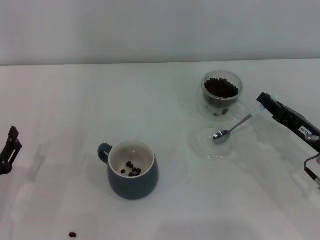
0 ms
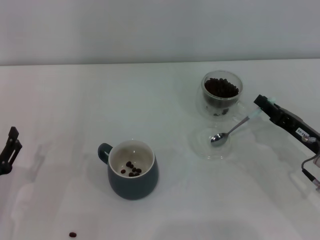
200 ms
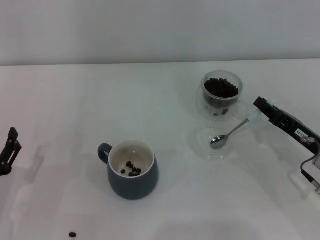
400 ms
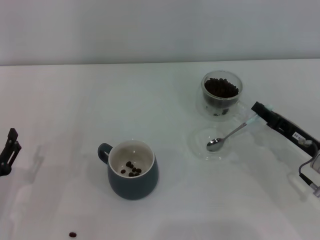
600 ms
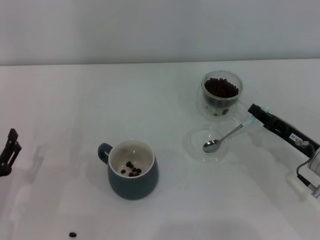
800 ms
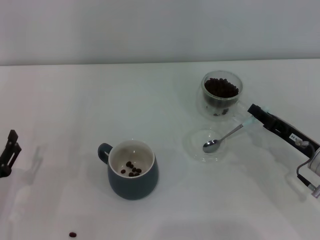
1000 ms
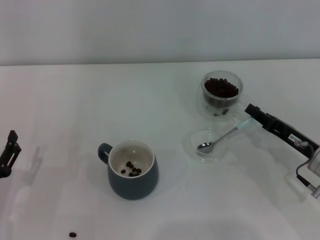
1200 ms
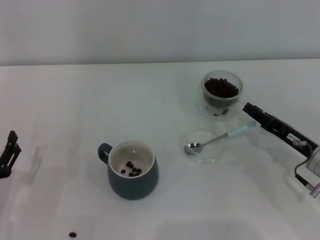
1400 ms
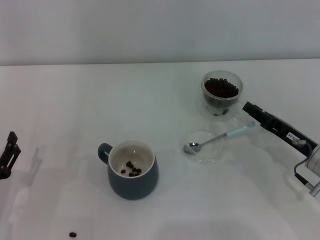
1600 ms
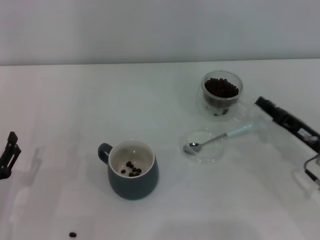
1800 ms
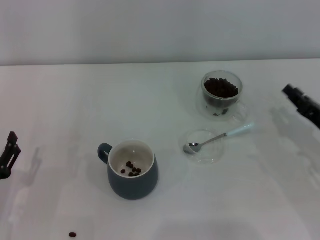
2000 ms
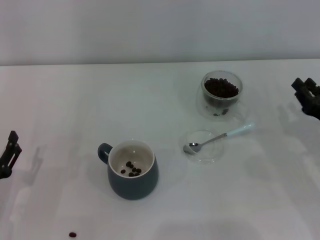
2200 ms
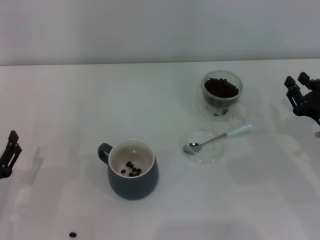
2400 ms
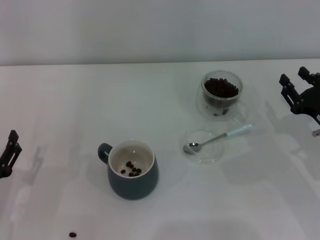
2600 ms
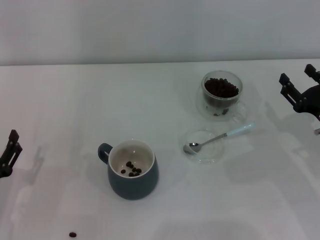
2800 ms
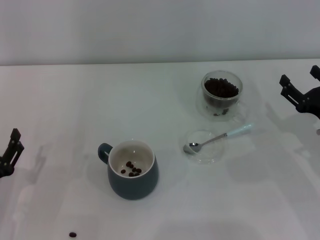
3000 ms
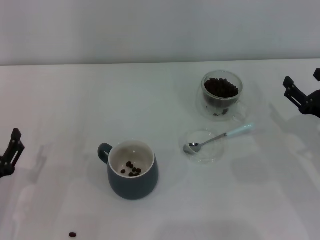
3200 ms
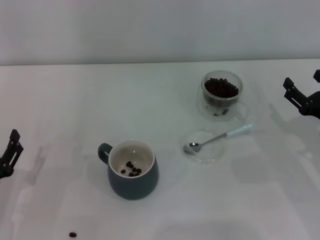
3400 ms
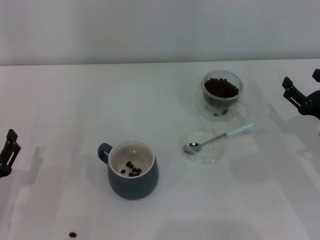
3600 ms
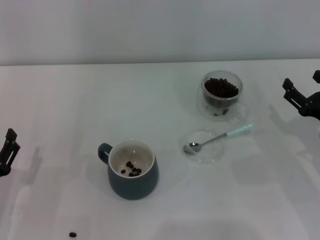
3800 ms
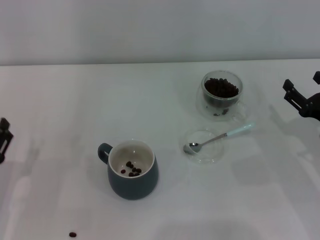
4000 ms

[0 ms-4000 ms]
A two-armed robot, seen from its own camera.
Task of the whole recording: Use a blue spoon to take out the coffee beans from the glass and pour them into the gray cup.
0 ms to 1400 ms: The grippers make only small movements.
2600 ms to 4000 ms: The right gripper opens up.
